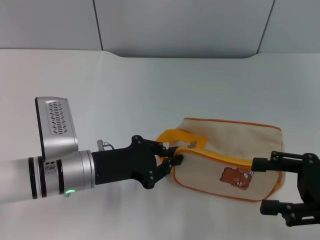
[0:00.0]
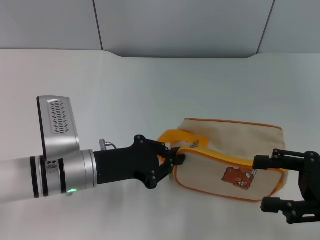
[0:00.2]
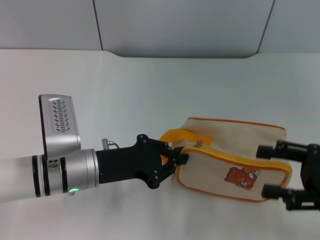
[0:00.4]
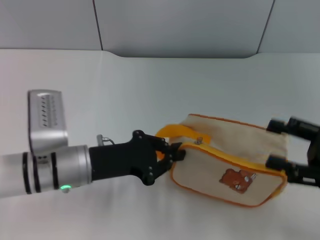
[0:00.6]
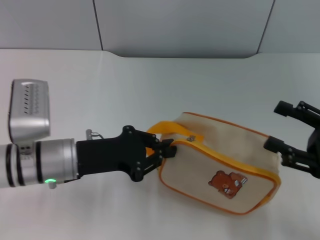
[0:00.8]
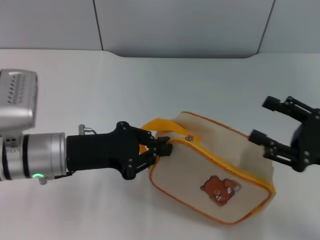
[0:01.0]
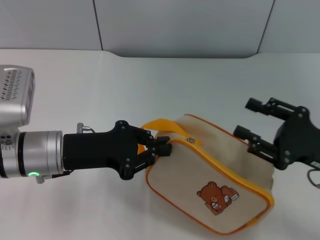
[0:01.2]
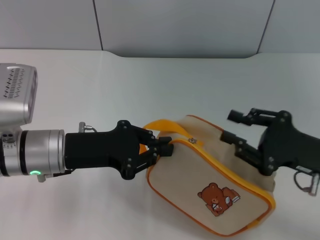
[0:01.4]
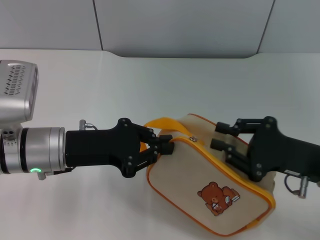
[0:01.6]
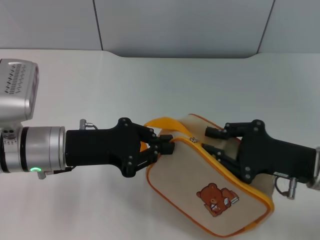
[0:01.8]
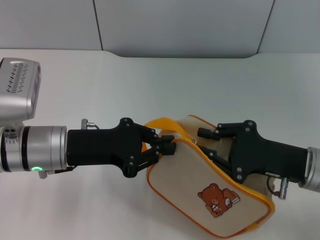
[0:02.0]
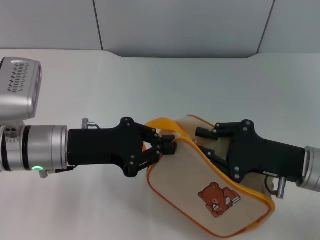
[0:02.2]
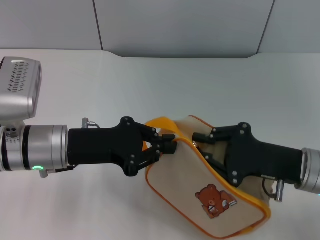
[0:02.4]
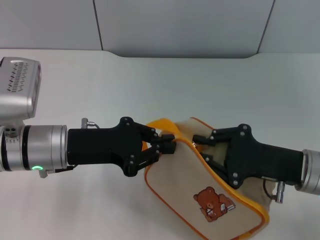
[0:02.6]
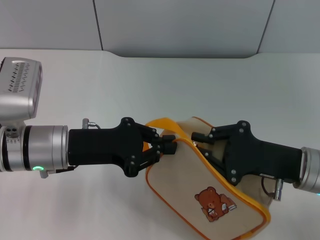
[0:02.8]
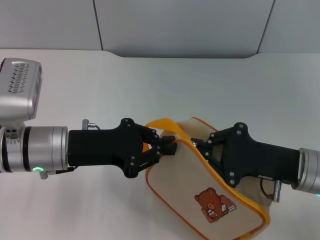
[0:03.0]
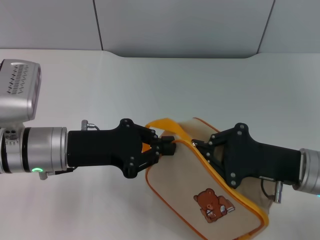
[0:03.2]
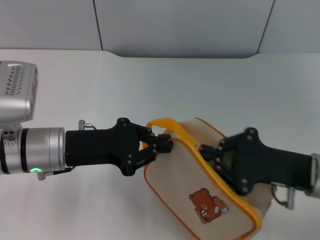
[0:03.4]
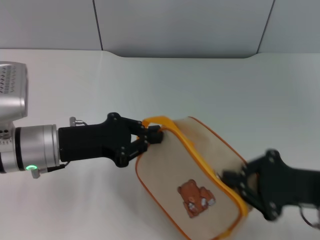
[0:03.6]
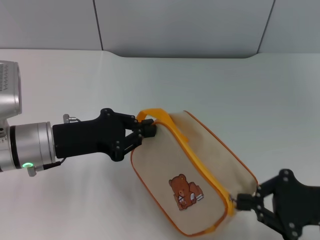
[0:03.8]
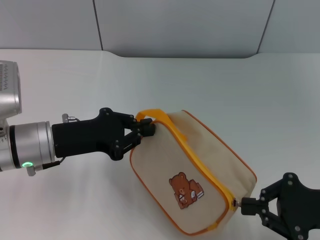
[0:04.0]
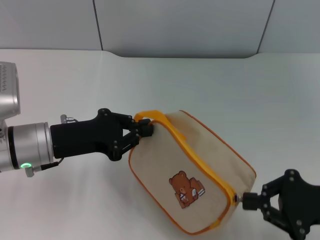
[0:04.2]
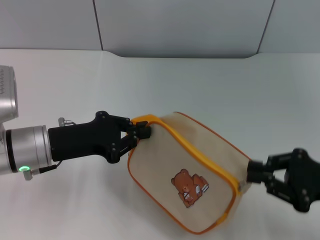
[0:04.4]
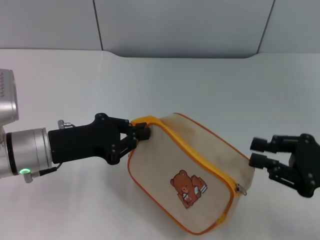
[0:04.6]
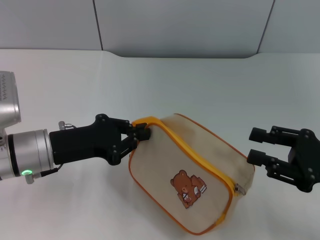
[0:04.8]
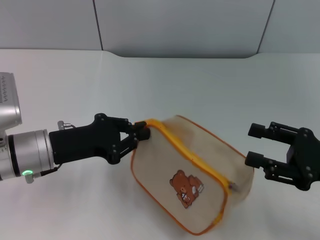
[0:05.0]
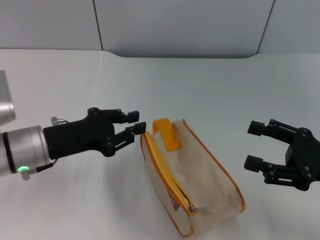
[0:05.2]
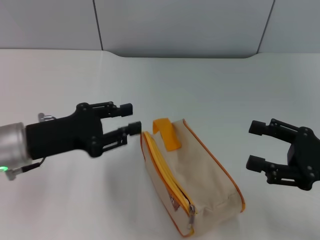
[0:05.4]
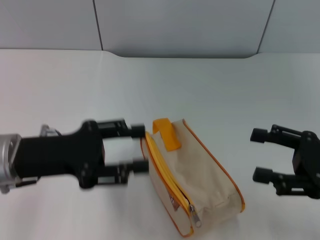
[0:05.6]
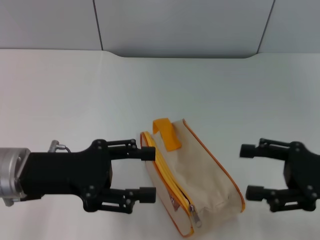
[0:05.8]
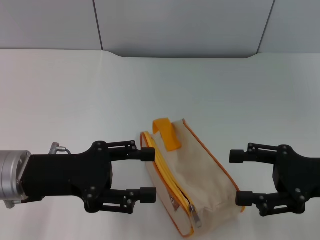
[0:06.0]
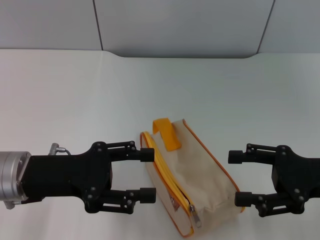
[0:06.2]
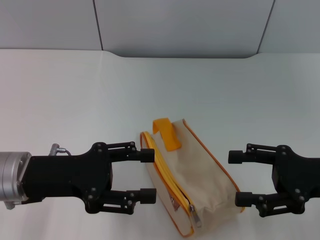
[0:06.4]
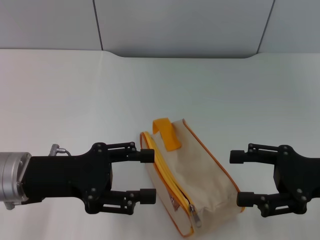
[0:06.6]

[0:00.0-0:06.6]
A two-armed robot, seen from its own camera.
Step, 0:01.0 to 0:04.4: Unzip the zipper of bag with right gripper.
Step, 0:04.6 to 0:05.2: Place the bag on the table with left gripper.
0:00.0 to 0:01.6: The right gripper moves roughly 5 cm, and closes its fingers. The left gripper heads upward, covering roughly 5 cm.
0:01.6 to 0:03.2: The right gripper closes up.
0:03.2 to 0:05.0: The right gripper goes approximately 5 cm to the right, and opens.
0:05.0 to 0:06.6: The left gripper opens its fingers.
